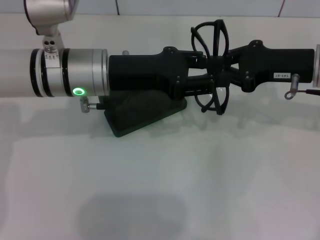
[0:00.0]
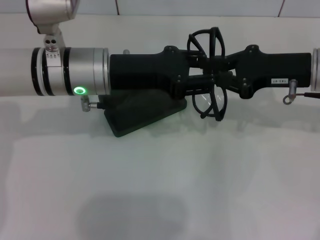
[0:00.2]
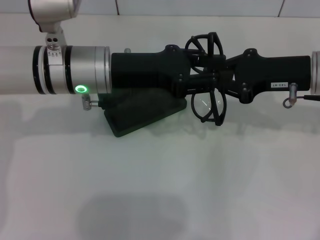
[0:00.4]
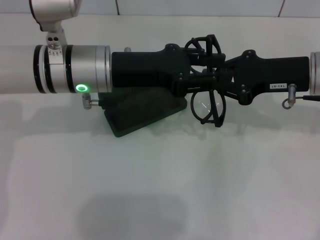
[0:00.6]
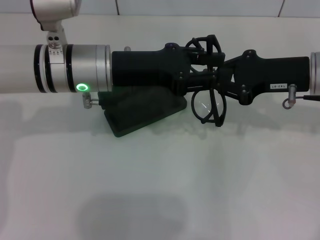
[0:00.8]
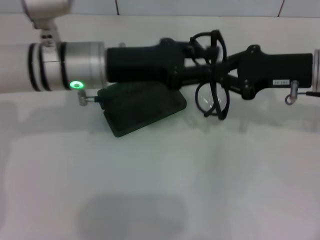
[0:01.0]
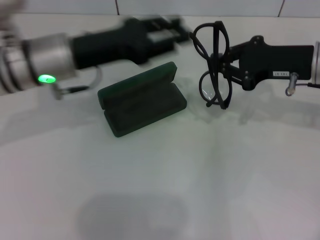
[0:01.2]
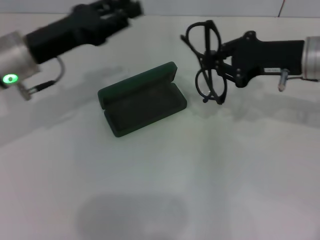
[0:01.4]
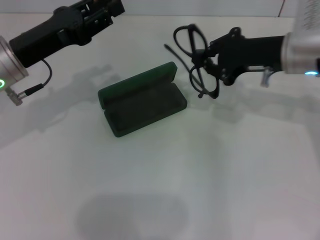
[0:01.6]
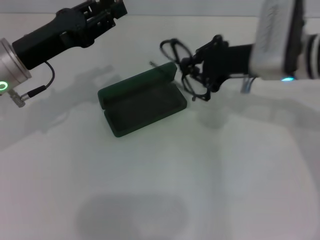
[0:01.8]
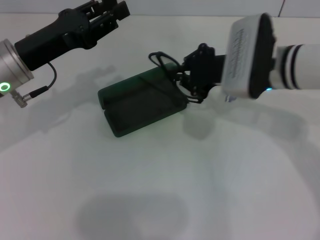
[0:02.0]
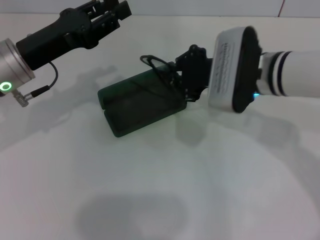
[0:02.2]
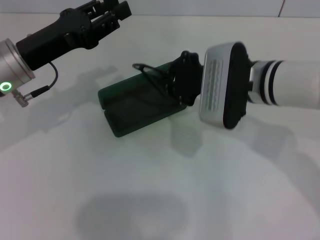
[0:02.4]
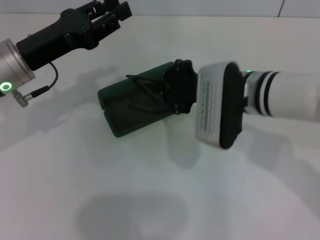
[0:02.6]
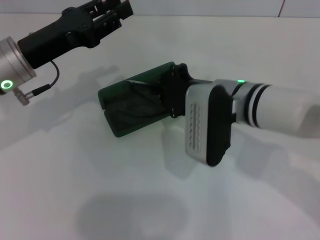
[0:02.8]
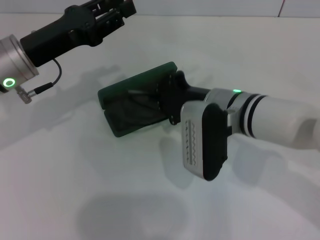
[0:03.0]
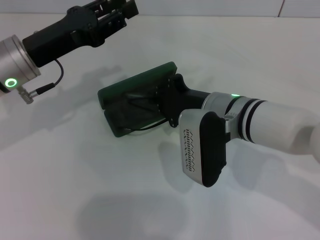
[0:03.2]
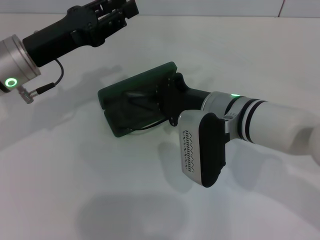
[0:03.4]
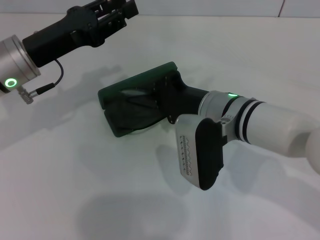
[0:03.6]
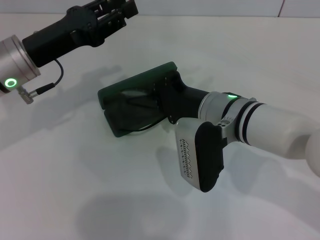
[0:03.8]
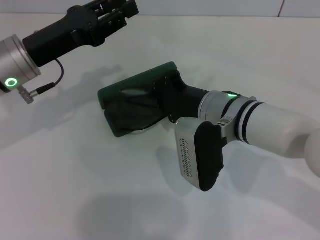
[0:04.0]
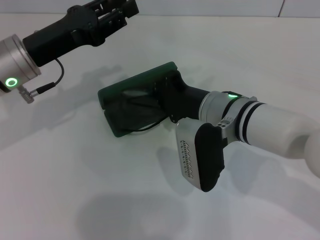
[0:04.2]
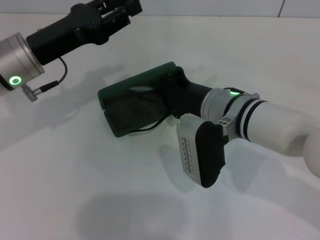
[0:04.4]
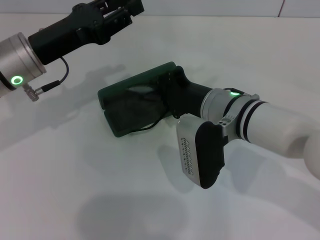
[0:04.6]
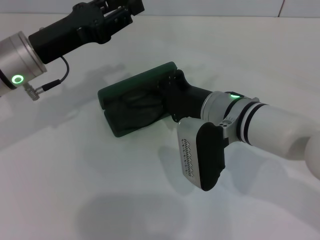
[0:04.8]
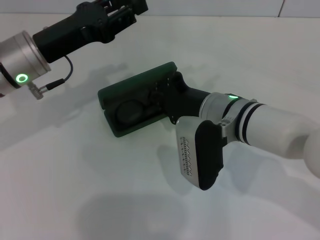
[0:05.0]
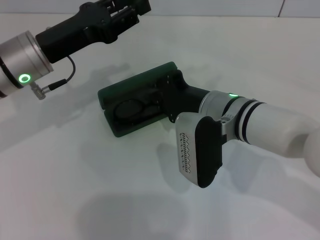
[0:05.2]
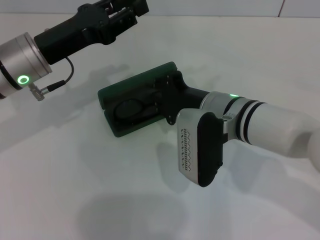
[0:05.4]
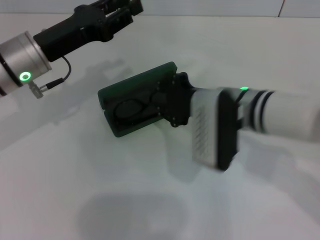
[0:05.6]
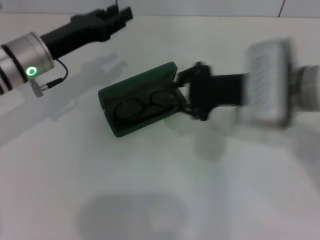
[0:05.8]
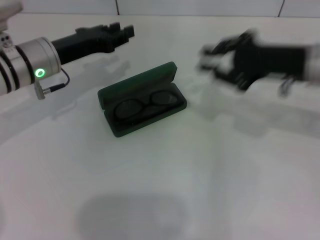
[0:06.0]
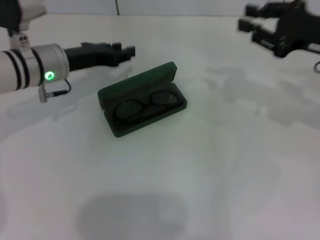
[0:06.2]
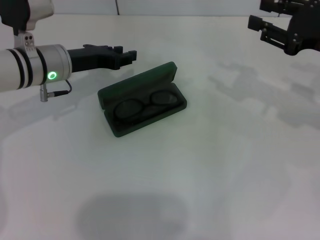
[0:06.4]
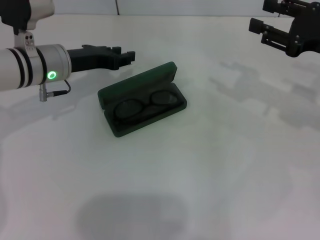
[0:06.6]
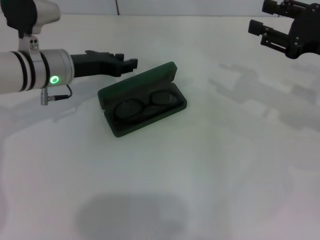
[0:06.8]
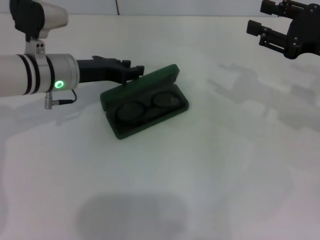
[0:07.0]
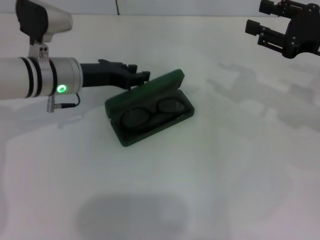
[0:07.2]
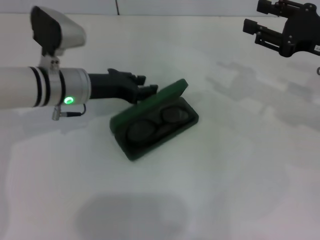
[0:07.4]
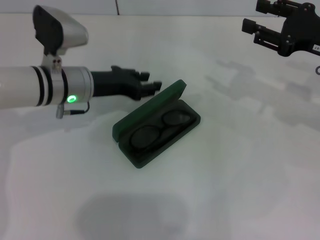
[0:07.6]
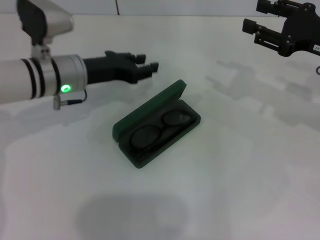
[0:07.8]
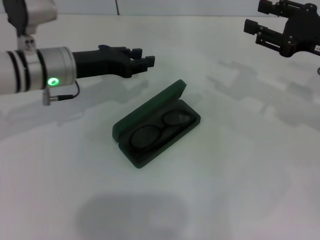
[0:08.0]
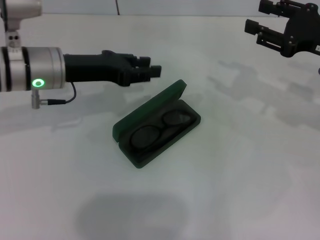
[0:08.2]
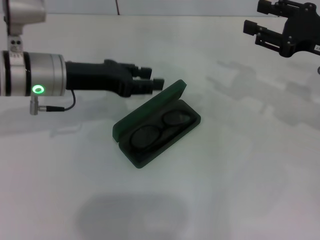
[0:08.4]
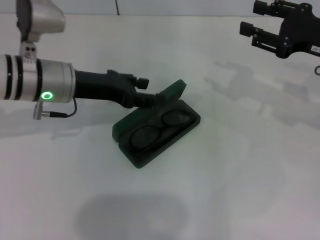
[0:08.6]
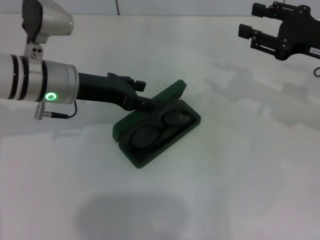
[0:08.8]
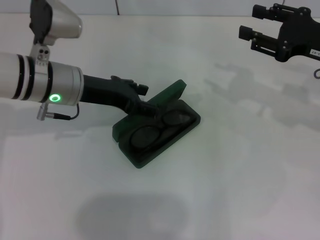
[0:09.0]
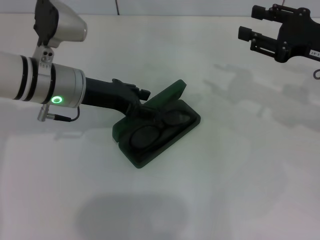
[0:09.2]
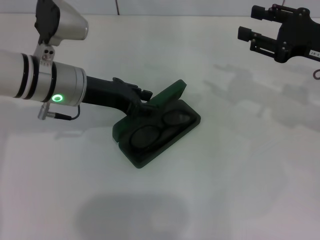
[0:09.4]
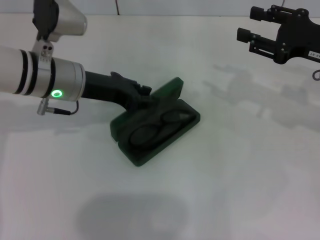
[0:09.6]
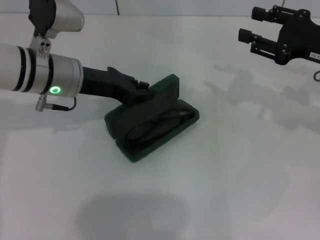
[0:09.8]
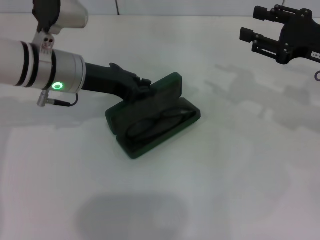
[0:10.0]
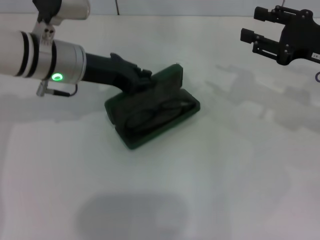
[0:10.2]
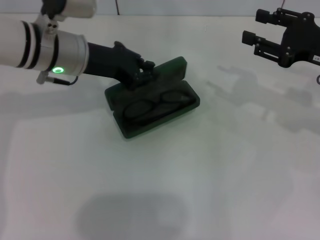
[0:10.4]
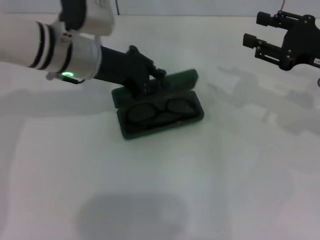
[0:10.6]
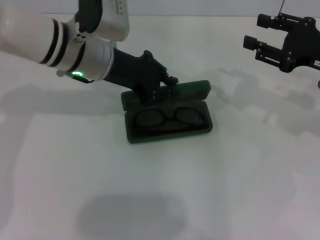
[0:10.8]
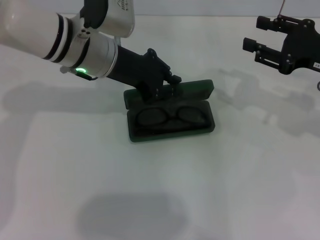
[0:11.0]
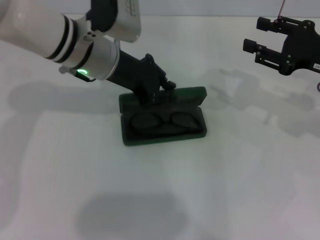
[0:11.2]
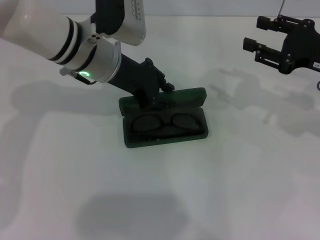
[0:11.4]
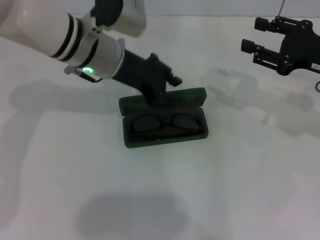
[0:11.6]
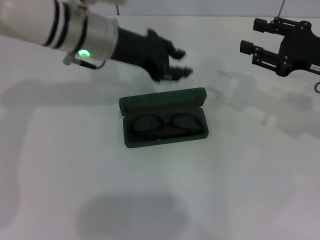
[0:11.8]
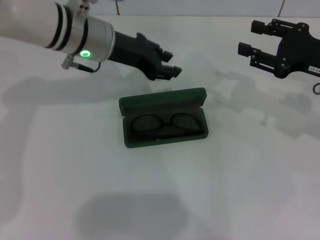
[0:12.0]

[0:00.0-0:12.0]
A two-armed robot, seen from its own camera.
Step, 0:00.8 to 0:05.8: Put the glasses into the case with your right hand.
0:00.0 to 0:01.6: The left gripper goes roughly 10 cm to the left.
0:01.6 to 0:03.0: The right gripper shifts approximately 15 cm to the left, backward and downward.
0:03.0 to 0:04.4: There are only small adjustments of the grippers.
0:04.4 to 0:06.0: The right gripper travels to the right and upward by some 15 cm. Meanwhile the left gripper shifts by approximately 5 cm.
0:06.0 to 0:07.6: The right gripper goes about 5 cm to the right, and opens its fingers.
0:07.6 to 0:09.0: The left gripper opens its fingers.
0:09.0 to 0:10.4: The left gripper closes.

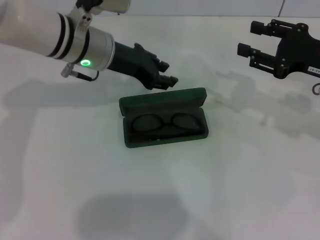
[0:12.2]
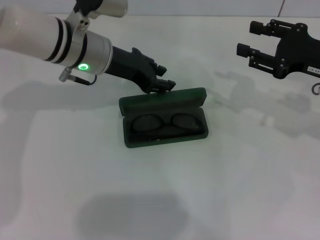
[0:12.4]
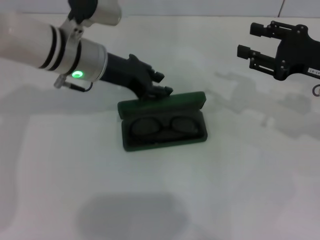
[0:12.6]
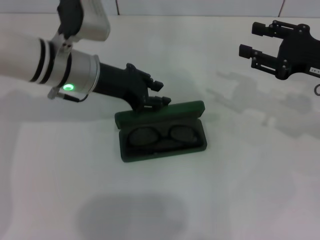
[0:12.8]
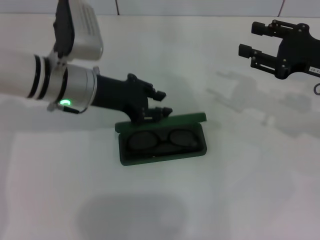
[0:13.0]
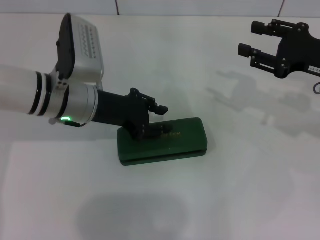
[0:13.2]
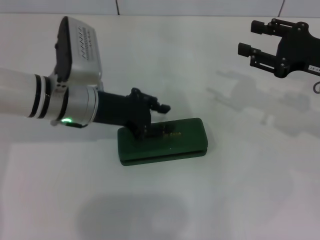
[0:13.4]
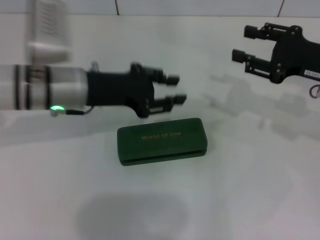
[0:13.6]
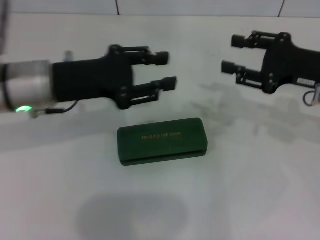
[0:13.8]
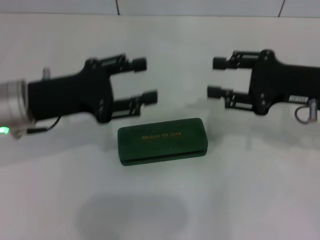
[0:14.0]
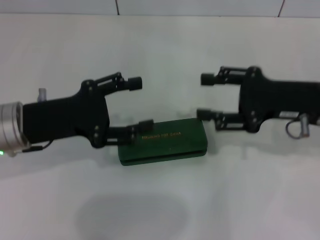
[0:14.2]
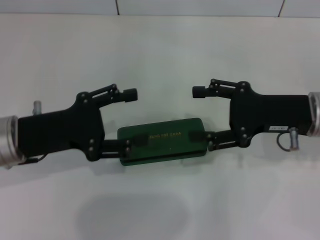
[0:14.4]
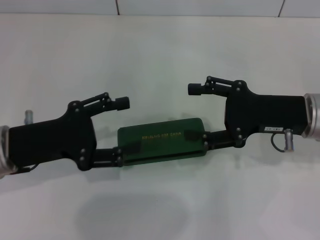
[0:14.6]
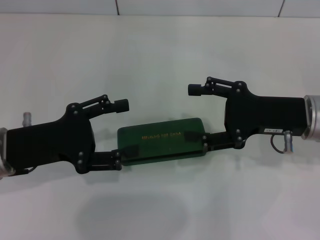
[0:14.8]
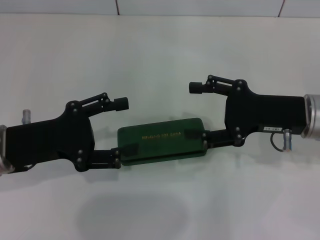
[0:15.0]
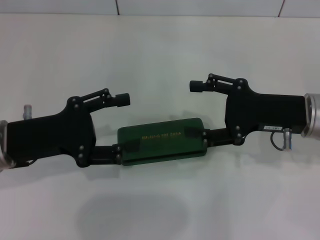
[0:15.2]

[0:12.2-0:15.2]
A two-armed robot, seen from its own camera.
0:12.2 to 0:13.8: The left gripper goes roughly 10 cm backward and to the left.
0:13.8 to 0:15.2: The right gripper changes place by some 5 cm, and opens up; the left gripper travels backward by some 5 cm, and opens up.
